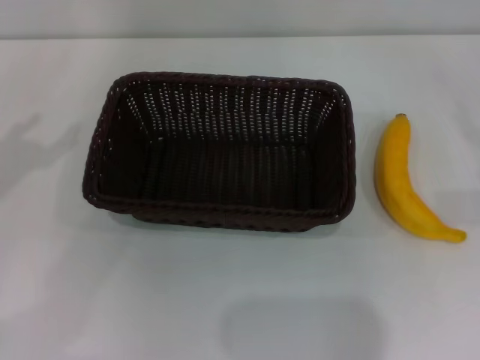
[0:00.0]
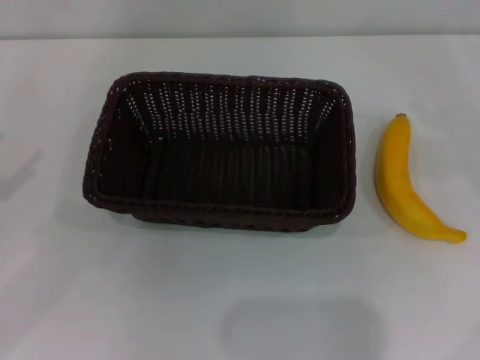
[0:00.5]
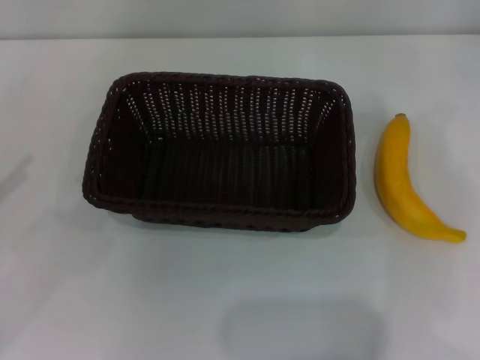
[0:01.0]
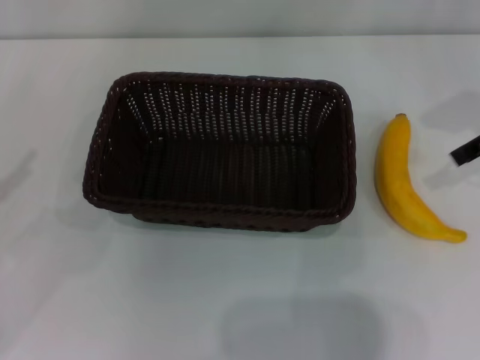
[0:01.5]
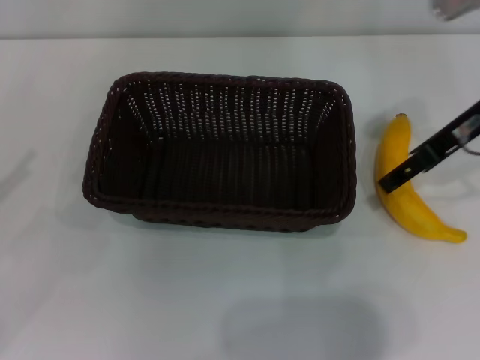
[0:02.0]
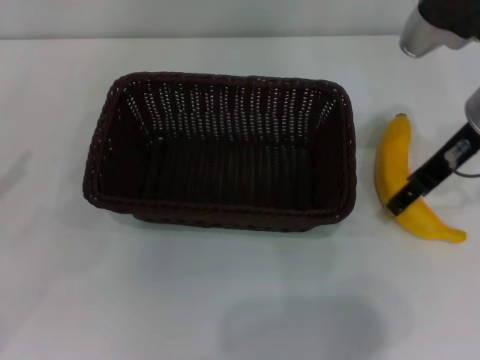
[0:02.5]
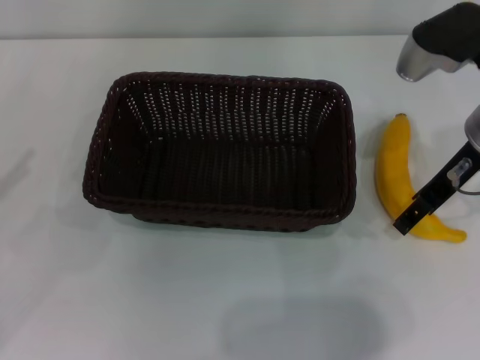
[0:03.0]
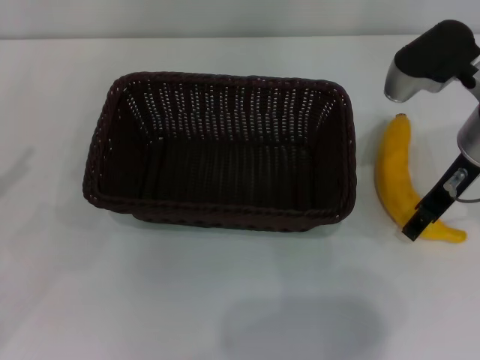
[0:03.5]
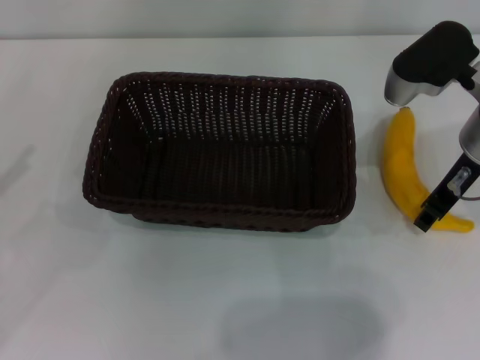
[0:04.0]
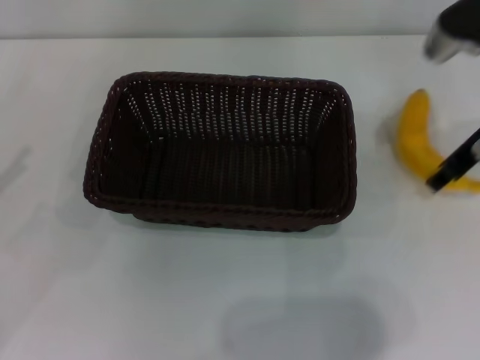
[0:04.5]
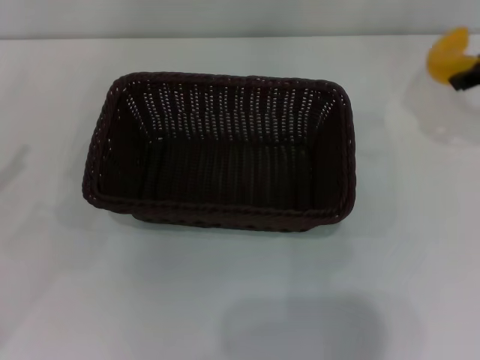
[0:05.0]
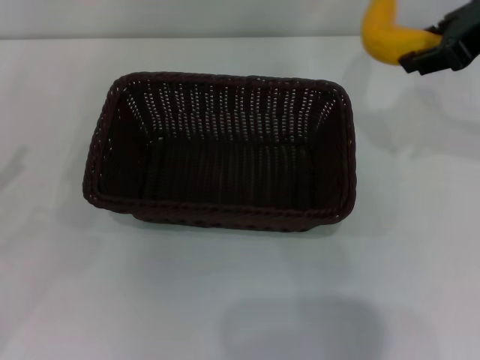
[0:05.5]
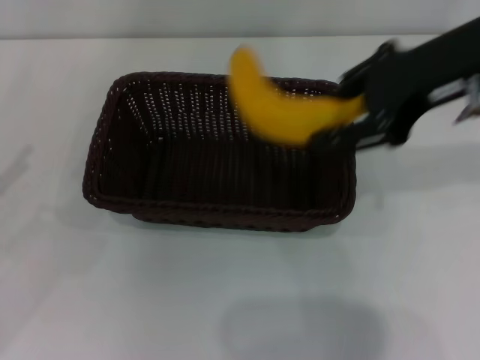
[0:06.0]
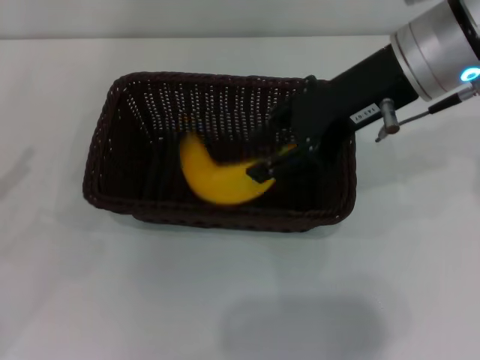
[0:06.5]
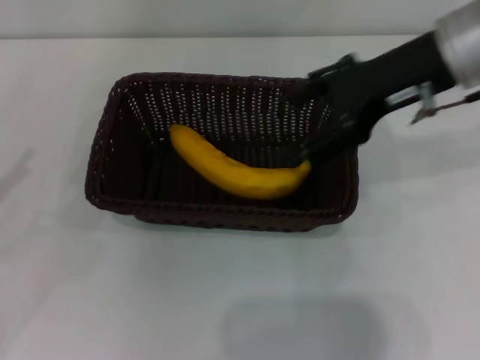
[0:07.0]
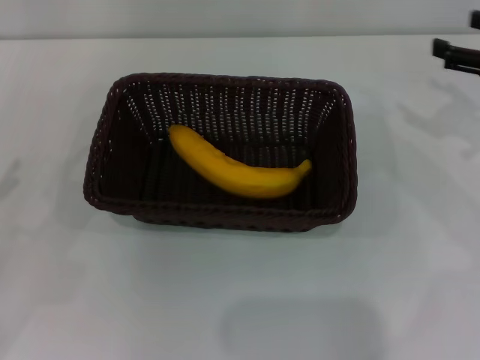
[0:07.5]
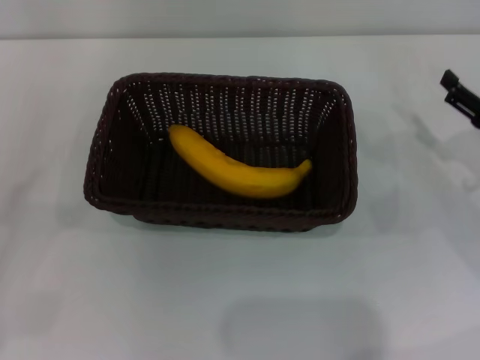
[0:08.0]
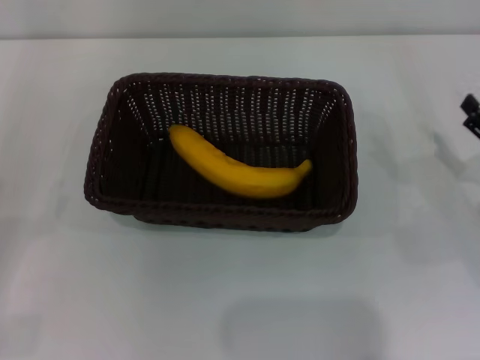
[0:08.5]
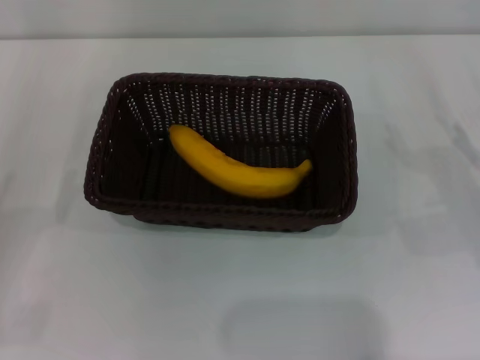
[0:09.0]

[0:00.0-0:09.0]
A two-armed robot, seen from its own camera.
Step, 0:00.0 to 0:05.0: Pick up the banana with the right gripper.
Step, 0:05.5 to 0:07.0: Place the banana into the dark basket with the right gripper.
0:00.0 to 0:02.0: The right gripper travels to the left and upward by some 25 cm.
0:02.0 to 0:04.5: The right gripper closes its fingers.
0:04.5 to 0:07.0: The right gripper is displaced upward and to the left by approximately 10 cm, and opens its fingers.
0:07.0 to 0:09.0: The right gripper is displaced downward and to the right by approximately 25 cm.
